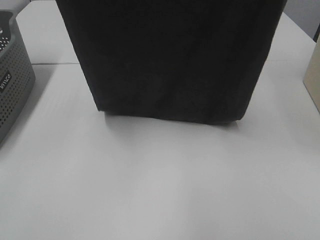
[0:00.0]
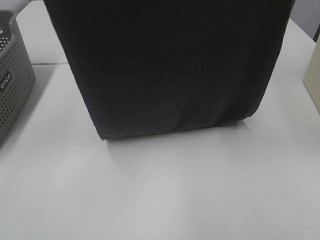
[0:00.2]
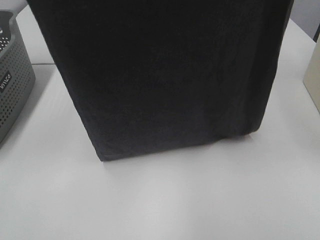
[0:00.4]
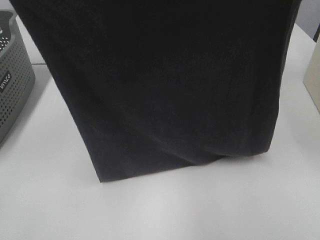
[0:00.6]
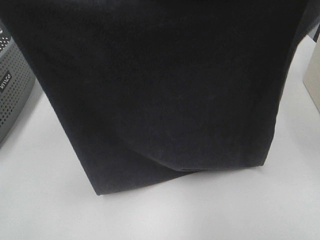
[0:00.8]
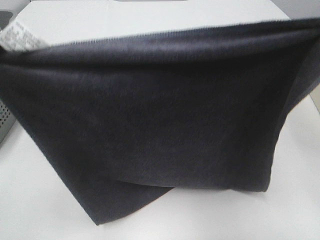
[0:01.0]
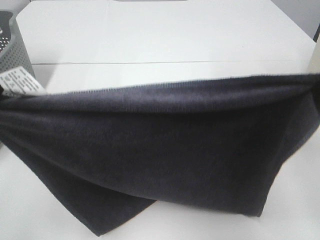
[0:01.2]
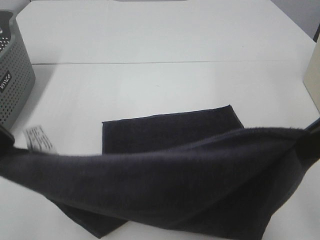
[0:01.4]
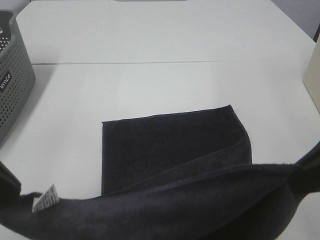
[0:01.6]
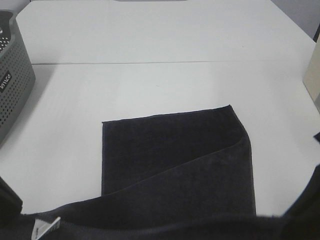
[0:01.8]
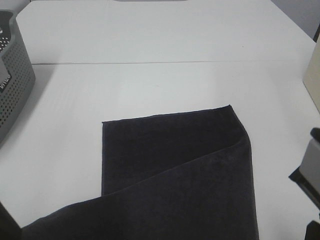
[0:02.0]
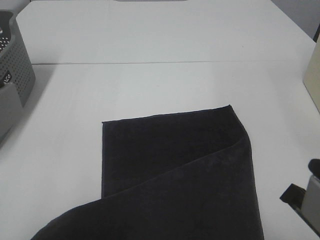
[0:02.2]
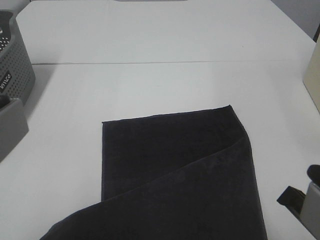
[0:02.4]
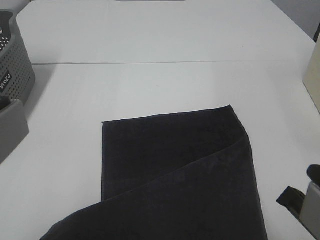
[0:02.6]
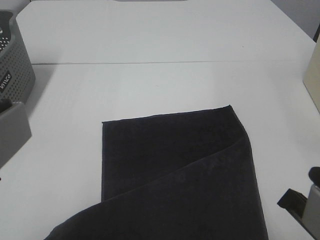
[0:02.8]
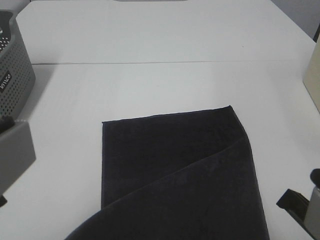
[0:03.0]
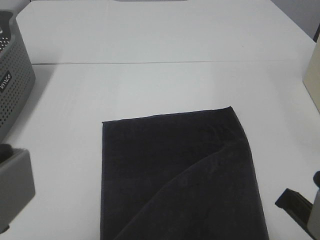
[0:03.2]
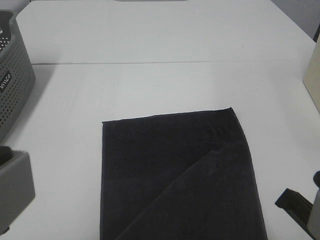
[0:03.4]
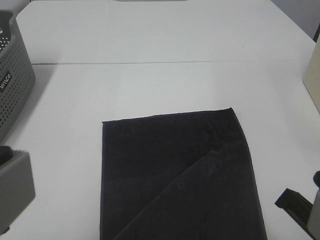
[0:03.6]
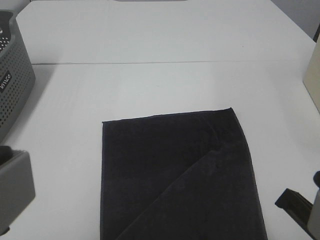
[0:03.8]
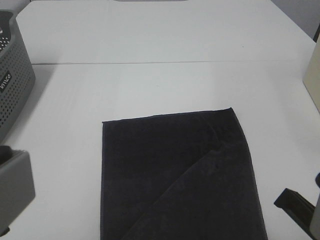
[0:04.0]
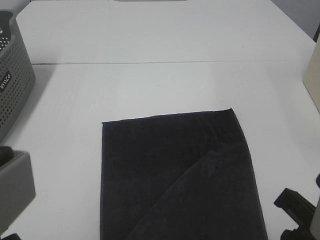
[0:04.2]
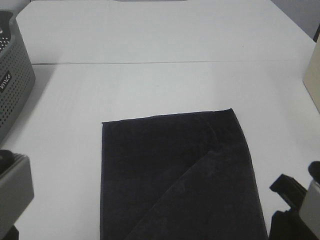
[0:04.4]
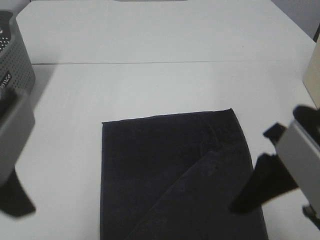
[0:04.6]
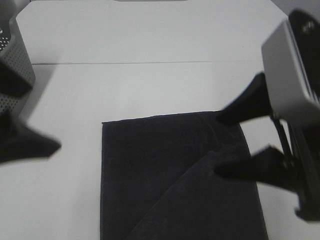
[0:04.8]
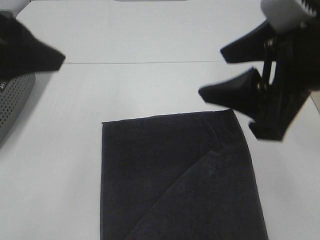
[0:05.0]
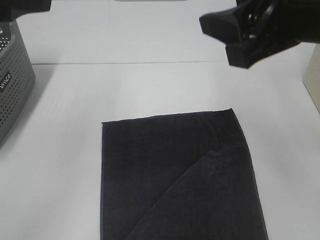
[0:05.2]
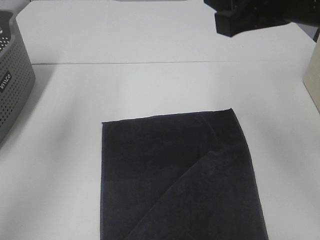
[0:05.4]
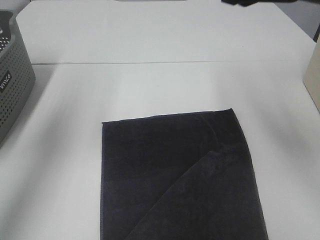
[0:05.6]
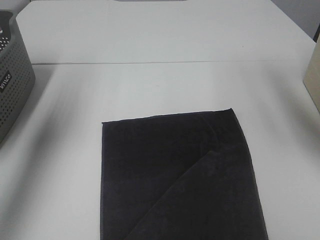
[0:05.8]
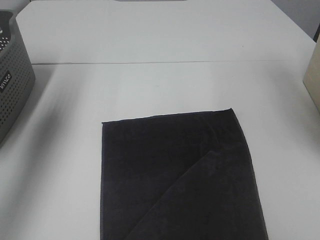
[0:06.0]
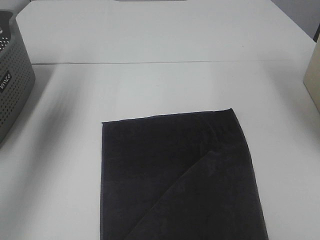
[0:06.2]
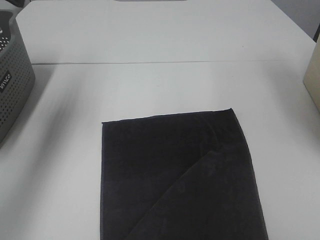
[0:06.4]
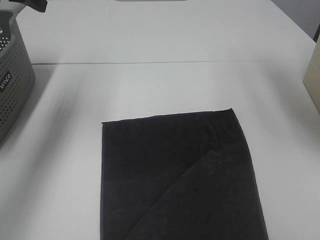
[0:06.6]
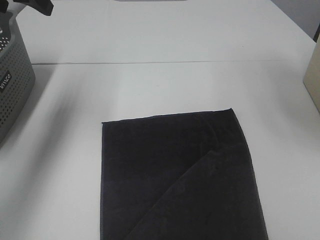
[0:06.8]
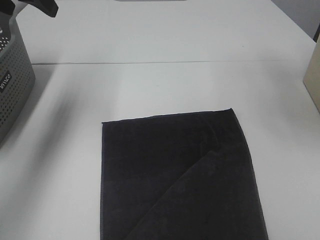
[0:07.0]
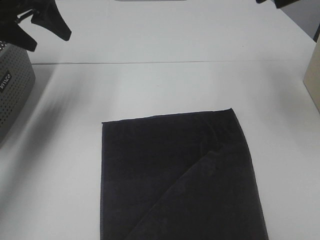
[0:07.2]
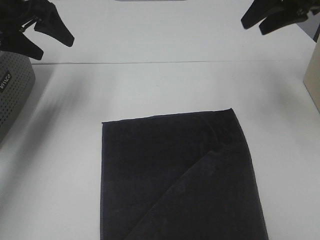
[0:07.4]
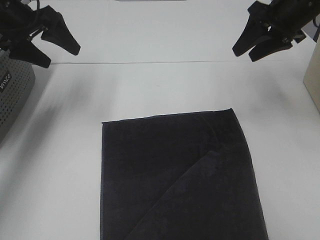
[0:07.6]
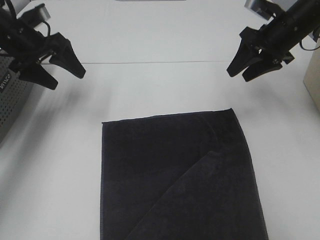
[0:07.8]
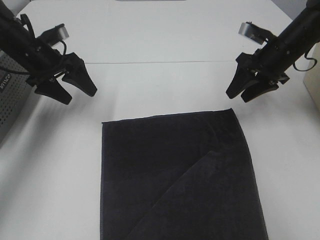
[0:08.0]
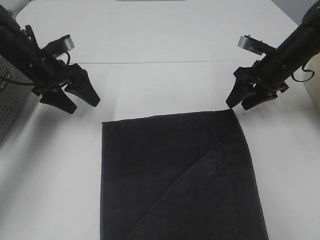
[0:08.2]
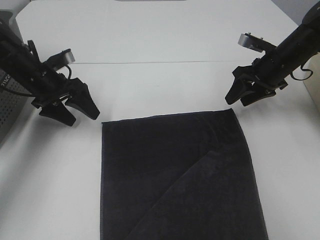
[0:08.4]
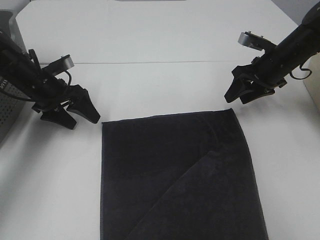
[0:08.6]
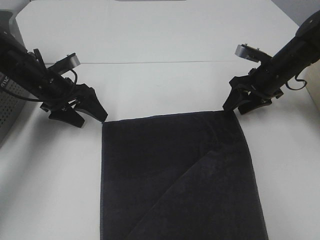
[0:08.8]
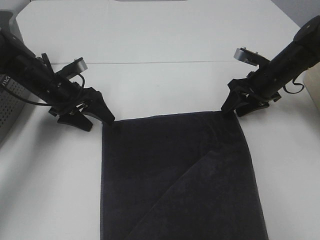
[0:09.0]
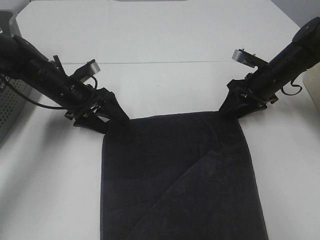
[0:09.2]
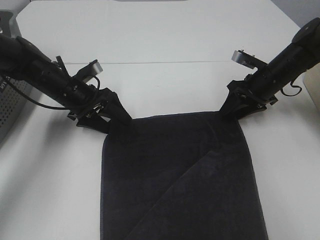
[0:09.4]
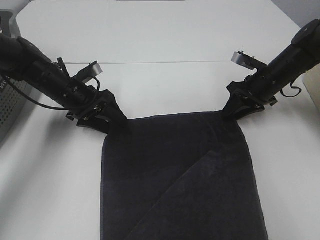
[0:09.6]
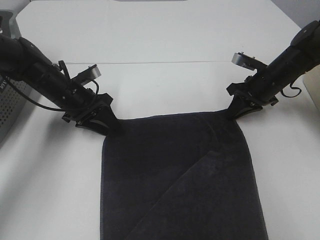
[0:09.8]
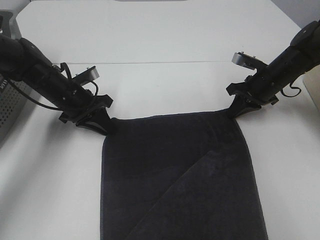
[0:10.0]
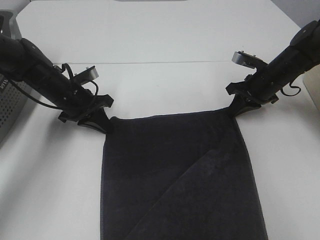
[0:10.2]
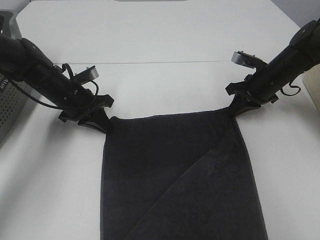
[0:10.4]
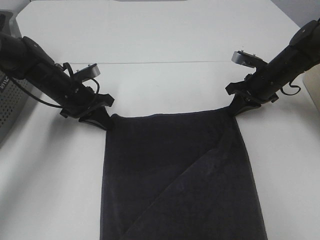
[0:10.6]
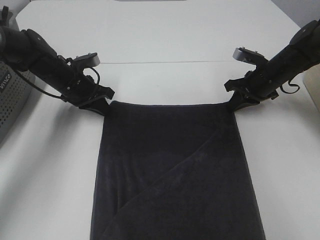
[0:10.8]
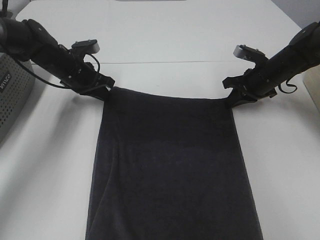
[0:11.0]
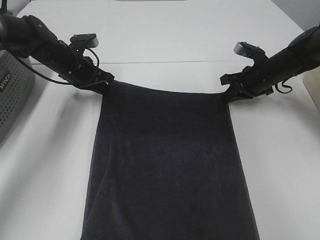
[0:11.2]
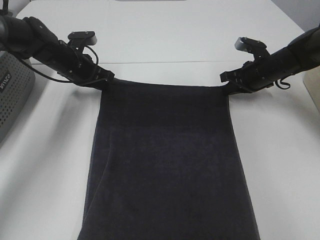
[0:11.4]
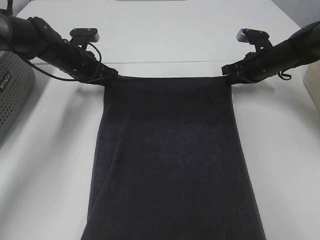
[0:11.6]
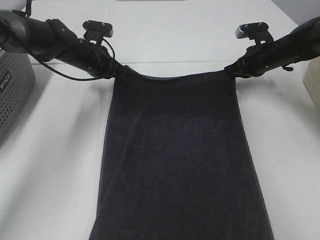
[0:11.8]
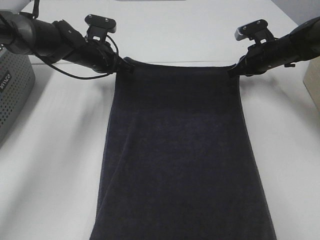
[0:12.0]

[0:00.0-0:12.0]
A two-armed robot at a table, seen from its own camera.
Task of the whole recording: Remove the towel and place it.
Step, 0:00.0 to 0:09.4: Left hand:adjust the gray towel.
Step, 0:00.0 to 0:09.4: Right hand:adjust the gray towel.
0:00.0 to 0:01.6: Both grippers move downward, approximately 20 cm.
0:01.6 to 0:03.0: The right gripper travels backward and to the left by some 10 cm, while the left gripper is displaced backward by about 5 cm.
0:03.0 to 0:04.4: The right gripper opens its fingers. The left gripper opens.
0:04.4 to 0:06.0: The right gripper heads forward and upward, covering some 25 cm. The left gripper shifts some 30 cm forward and to the left.
0:06.0 to 0:07.6: Both grippers move downward and forward, approximately 20 cm.
0:07.6 to 0:09.0: The grippers both shift downward by about 15 cm.
0:09.0 to 0:10.4: The right gripper closes, while the left gripper closes.
0:10.4 to 0:12.0: The grippers both shift forward by approximately 5 cm.

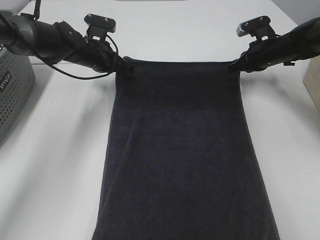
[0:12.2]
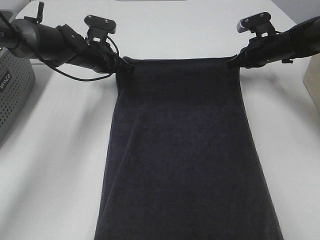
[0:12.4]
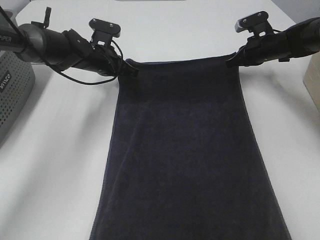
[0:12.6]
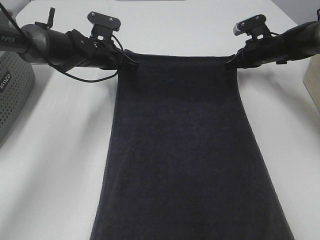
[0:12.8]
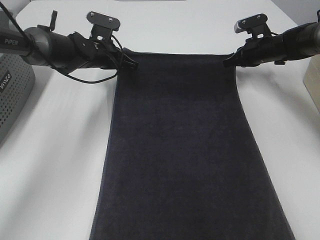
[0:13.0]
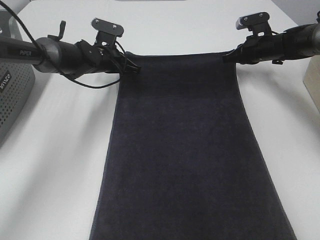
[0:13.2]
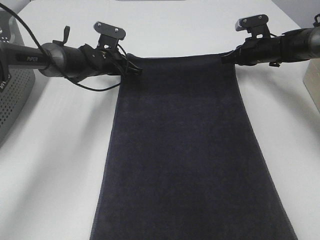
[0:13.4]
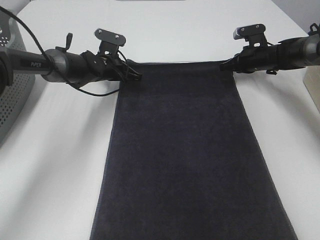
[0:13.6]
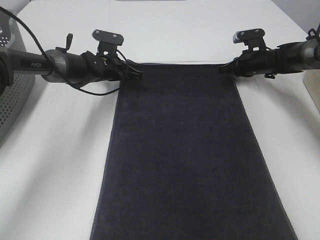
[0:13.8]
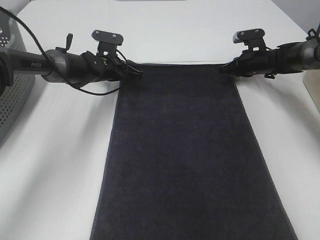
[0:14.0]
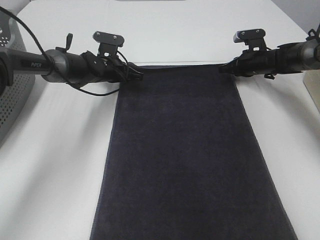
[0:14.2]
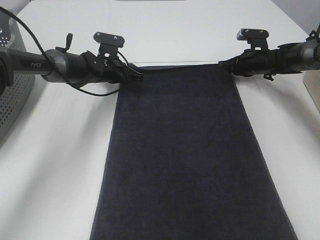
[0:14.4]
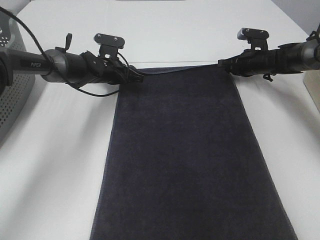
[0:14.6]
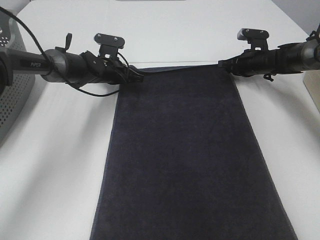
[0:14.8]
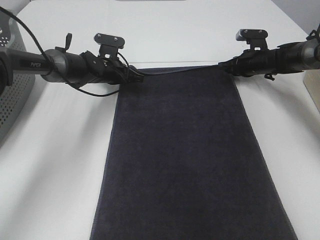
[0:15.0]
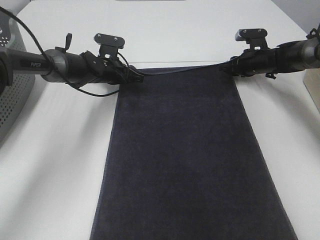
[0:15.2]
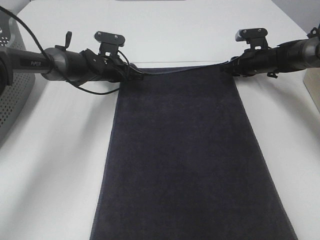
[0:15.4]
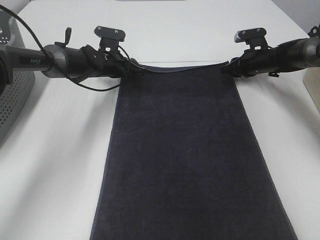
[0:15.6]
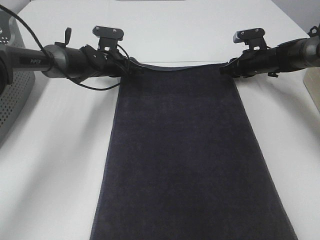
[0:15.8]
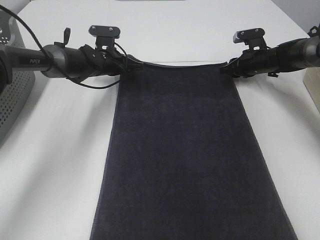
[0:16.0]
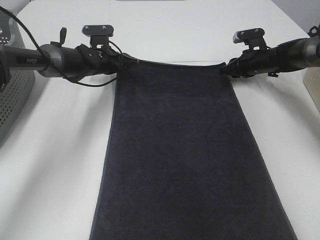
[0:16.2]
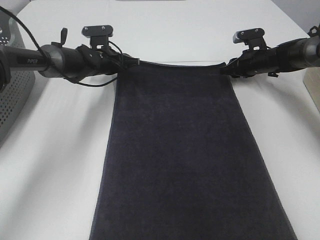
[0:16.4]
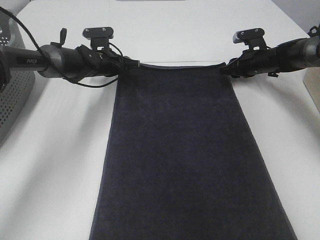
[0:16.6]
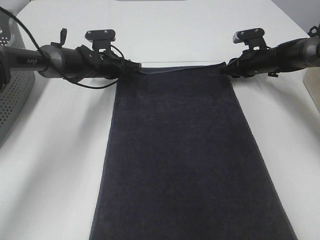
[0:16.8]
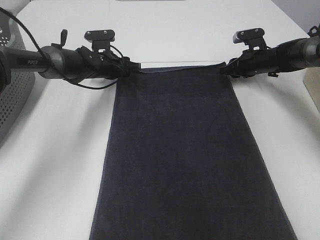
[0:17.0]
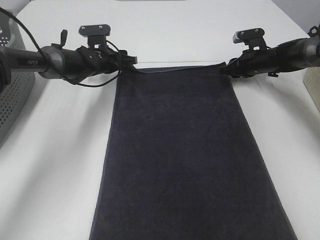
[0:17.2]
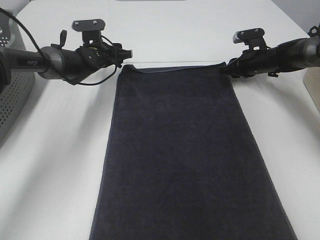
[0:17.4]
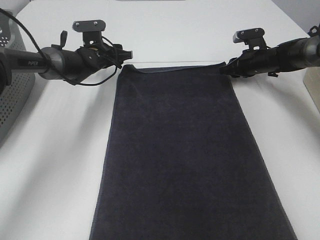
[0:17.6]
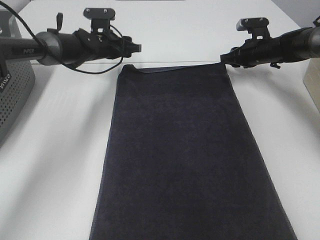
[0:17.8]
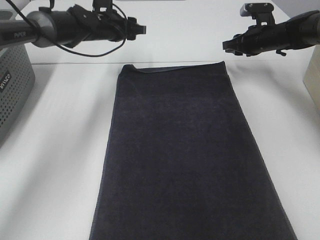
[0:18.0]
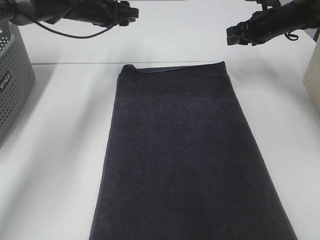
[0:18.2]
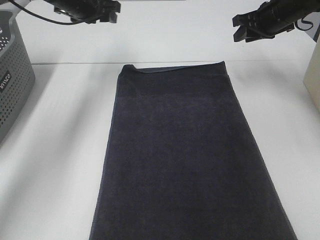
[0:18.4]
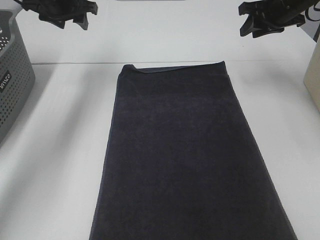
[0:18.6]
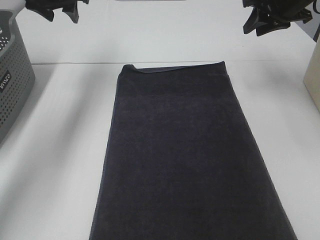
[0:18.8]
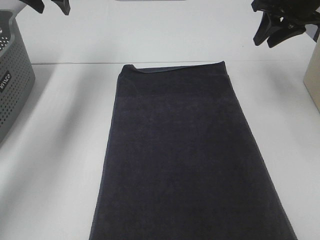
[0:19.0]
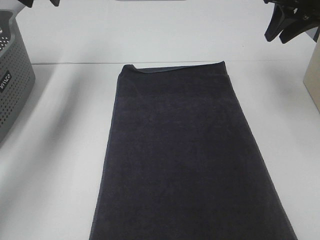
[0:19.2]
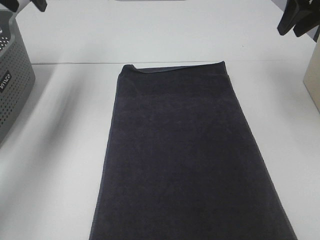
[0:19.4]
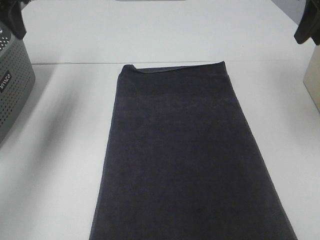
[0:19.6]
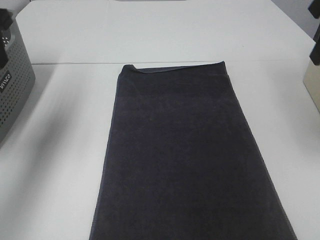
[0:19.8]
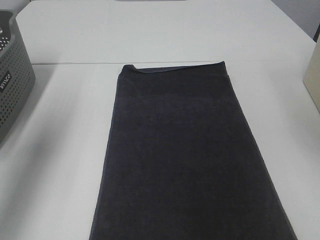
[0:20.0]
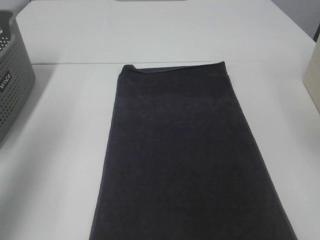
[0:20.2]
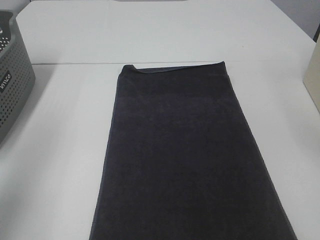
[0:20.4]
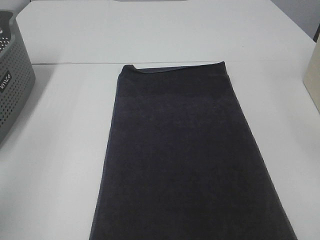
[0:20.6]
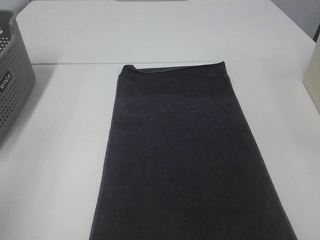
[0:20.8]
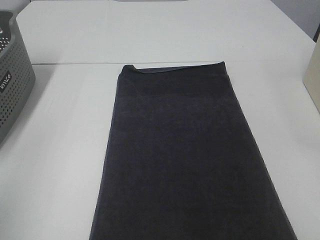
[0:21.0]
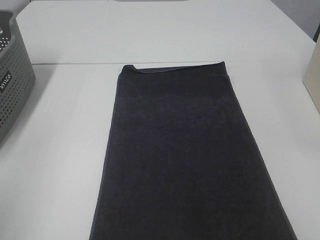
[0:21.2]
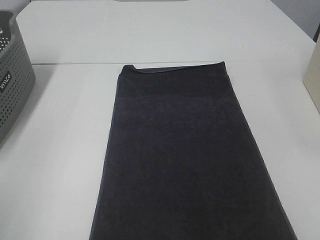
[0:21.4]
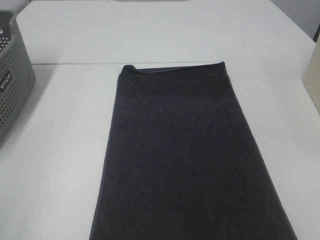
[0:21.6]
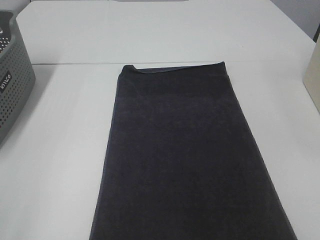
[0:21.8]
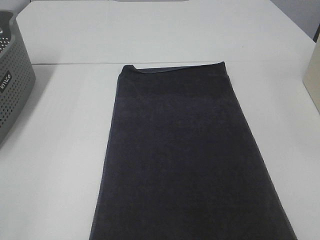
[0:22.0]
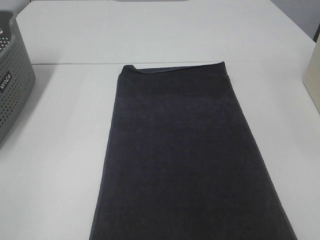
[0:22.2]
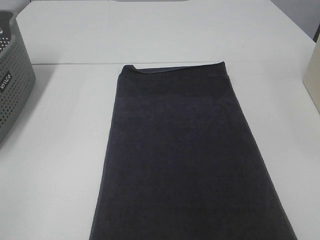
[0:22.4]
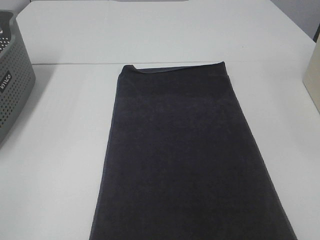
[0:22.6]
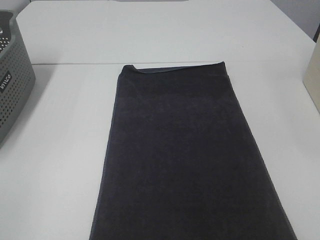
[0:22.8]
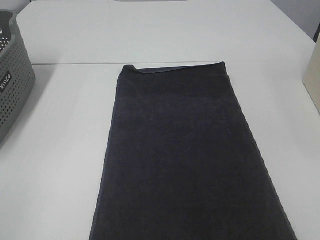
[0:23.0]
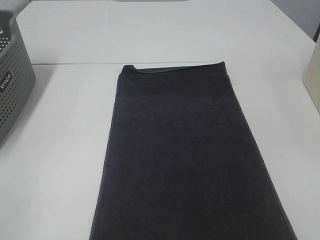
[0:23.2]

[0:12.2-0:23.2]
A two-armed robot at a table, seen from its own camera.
Task of the whole recording: Remove the towel and place it.
0:12.2 to 0:13.8: Both grippers move downward, approximately 5 cm.
0:13.8 to 0:15.4: The right gripper opens up.
0:15.4 to 0:17.0: The left gripper opens up.
0:17.0 to 0:18.4: The grippers both shift upward by approximately 15 cm.
0:18.4 to 0:20.0: The left gripper moves backward, some 30 cm. The right gripper is displaced backward and upward by approximately 30 cm.
0:20.0 to 0:21.6: The two grippers go approximately 20 cm backward.
